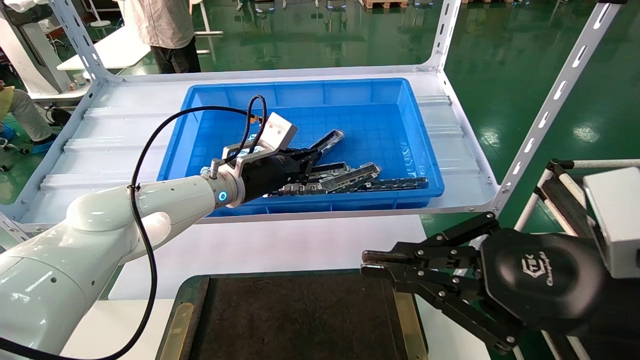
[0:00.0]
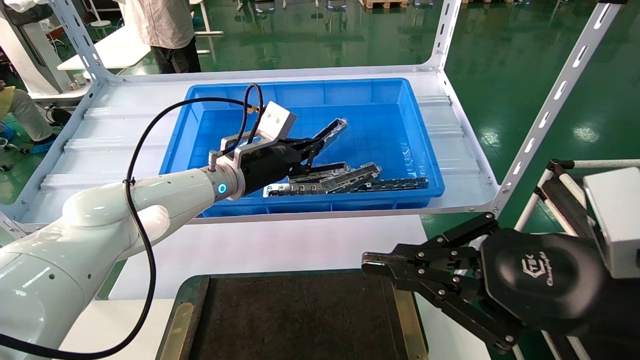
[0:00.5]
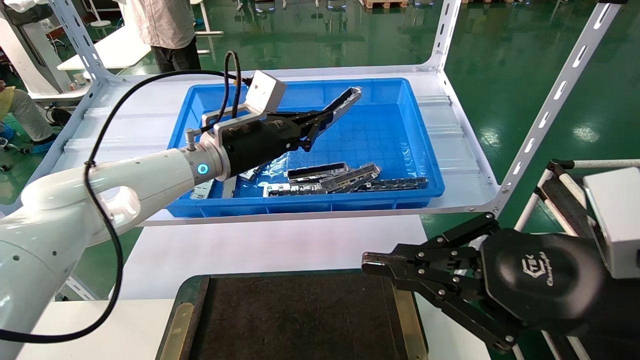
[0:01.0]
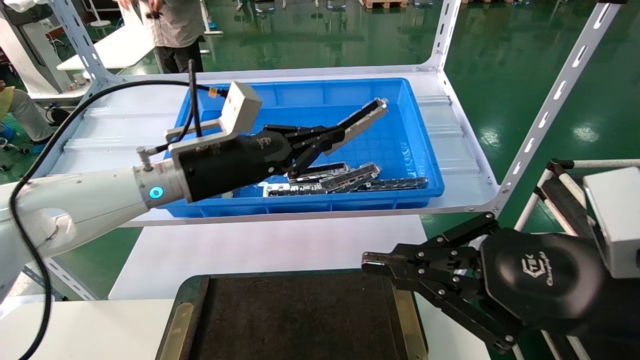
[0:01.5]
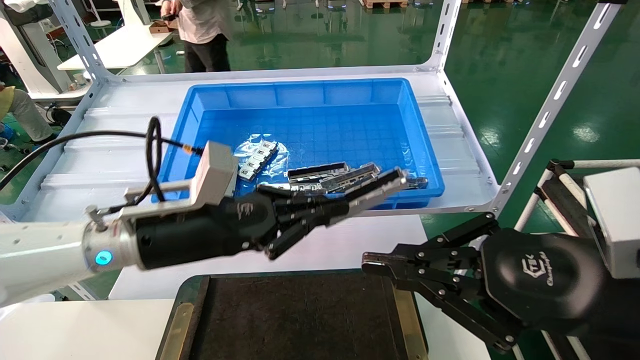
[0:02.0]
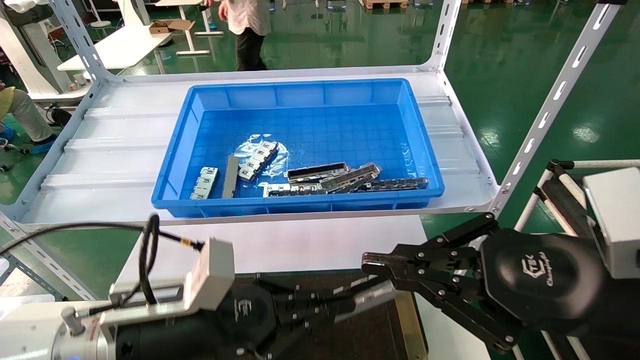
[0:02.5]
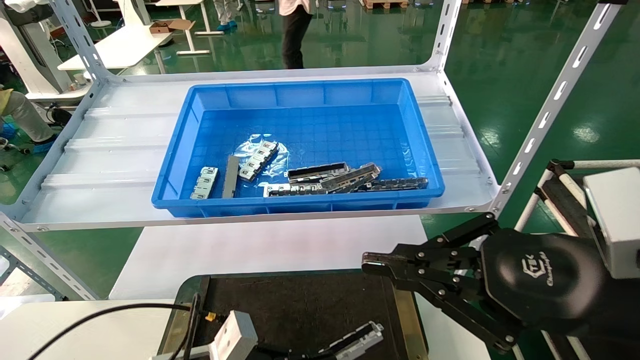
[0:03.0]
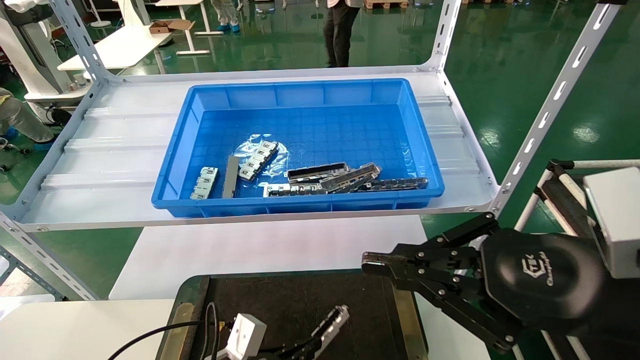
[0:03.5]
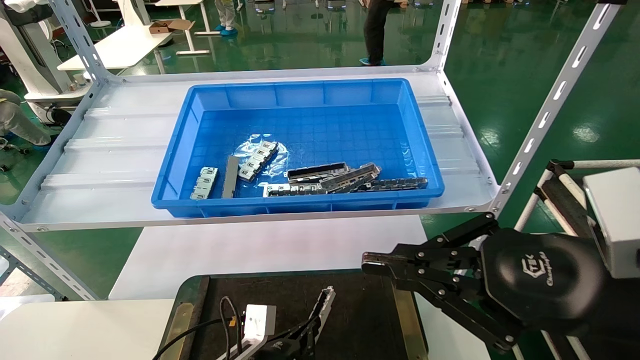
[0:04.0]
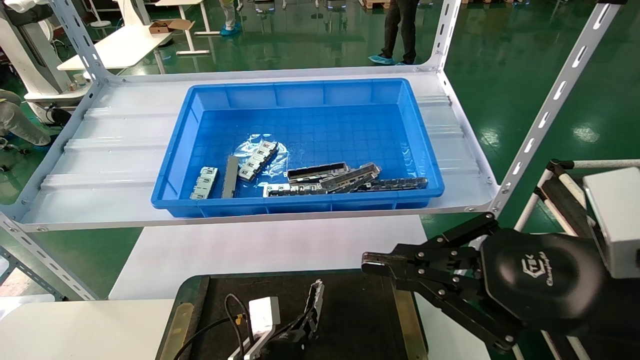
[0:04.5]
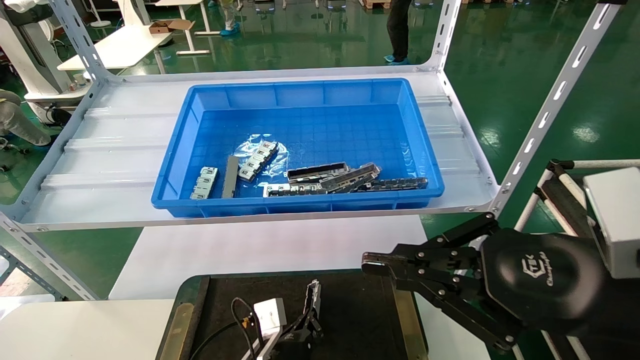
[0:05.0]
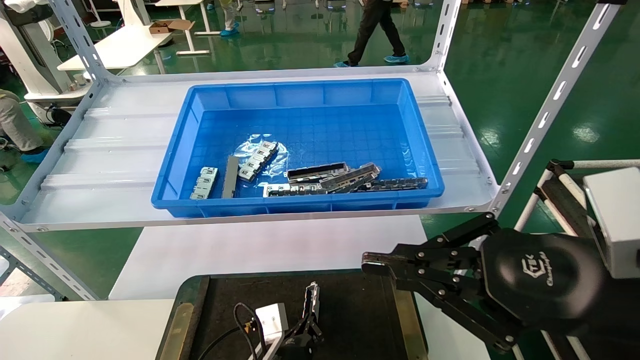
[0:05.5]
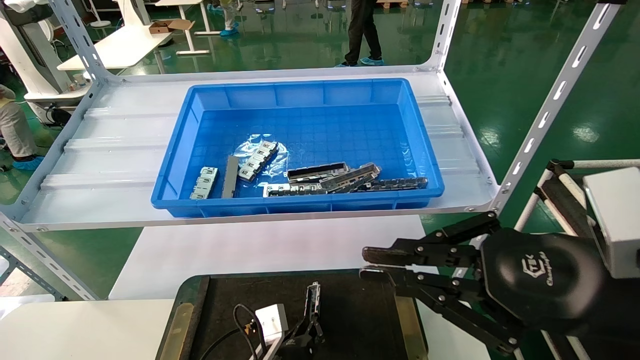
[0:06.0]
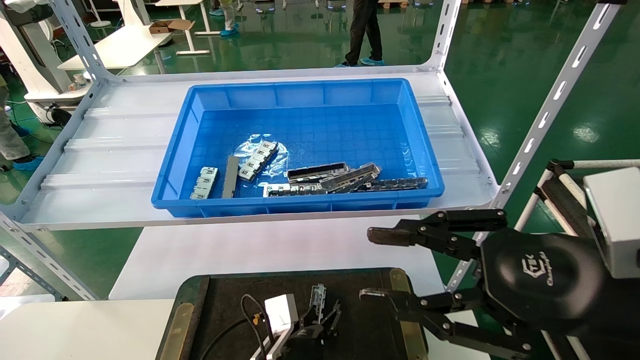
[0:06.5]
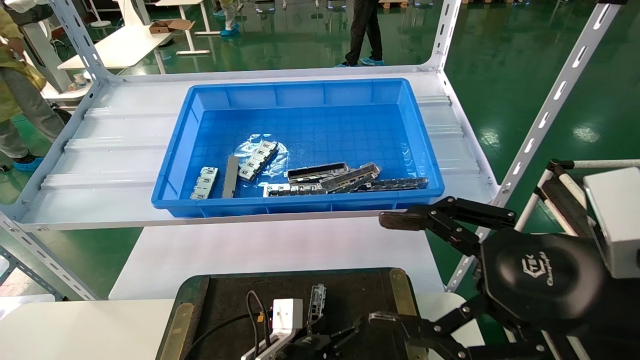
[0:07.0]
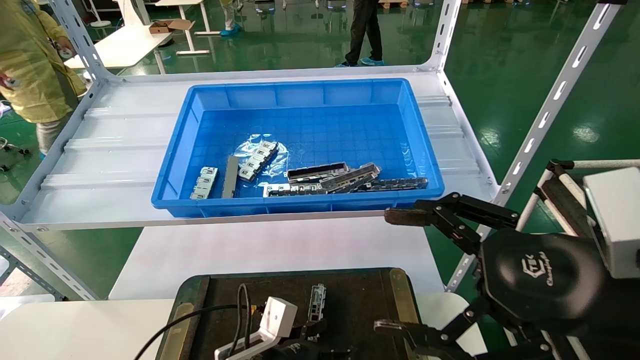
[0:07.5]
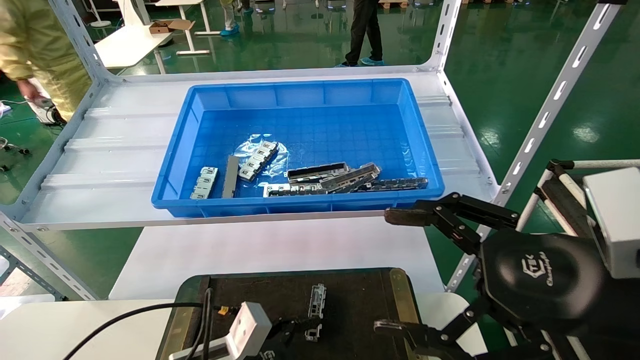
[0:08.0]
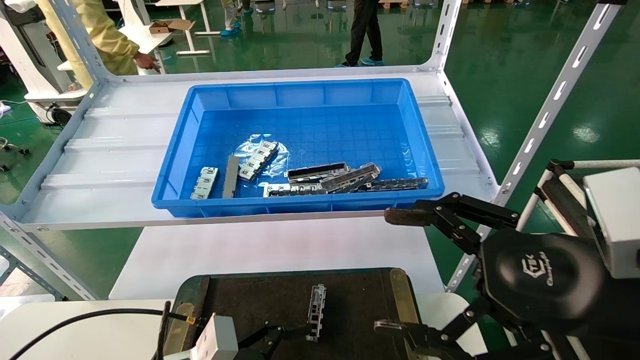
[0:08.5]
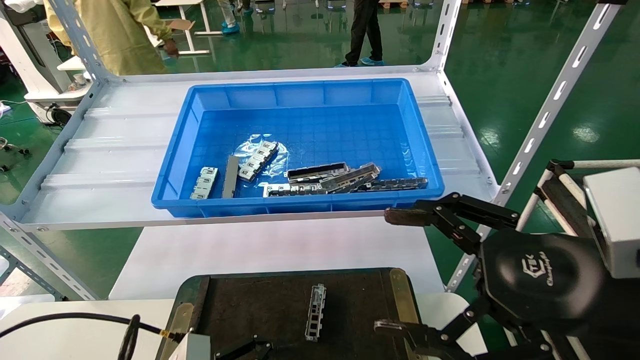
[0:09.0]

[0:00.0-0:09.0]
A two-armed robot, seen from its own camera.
Task of the whole recording: Grasp the part with one hand and place it on the black container.
Step, 0:01.5 to 0:05.5: Place the front USB bracket into the box.
0:00.0 to 0:02.0: The left gripper moves backward, approximately 15 cm.
0:02.0 to 0:04.5: The left gripper is displaced downward by approximately 30 cm.
0:04.5 to 0:07.0: The right gripper opens, while the left gripper opens.
0:07.0 to 0:09.0: The left gripper goes approximately 20 cm to the left, backward and upward.

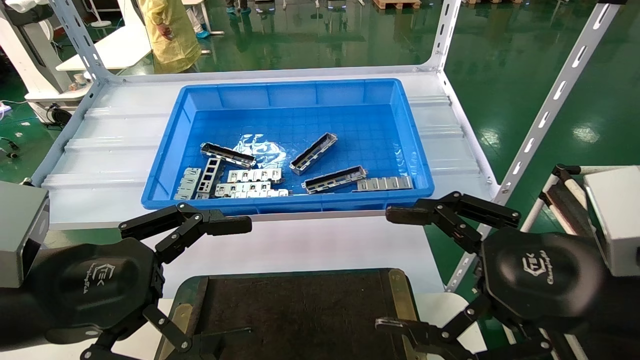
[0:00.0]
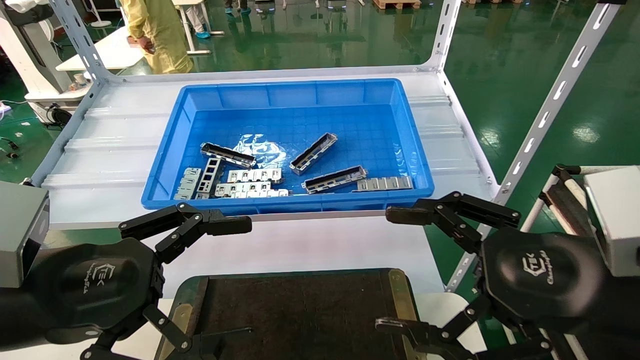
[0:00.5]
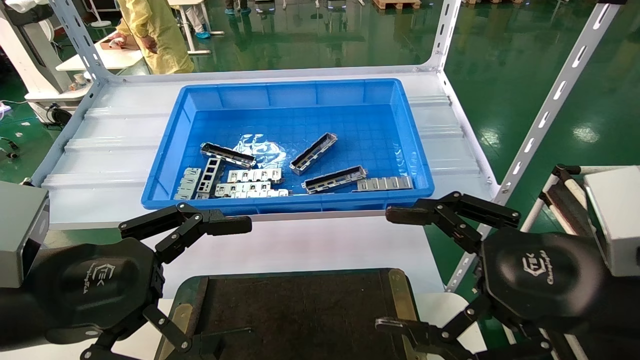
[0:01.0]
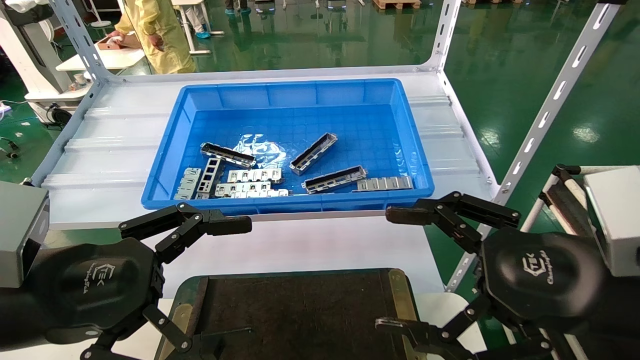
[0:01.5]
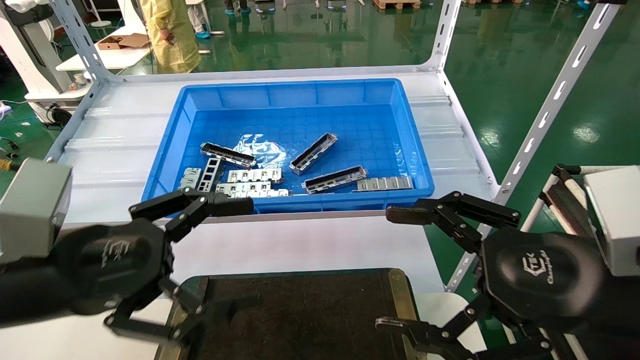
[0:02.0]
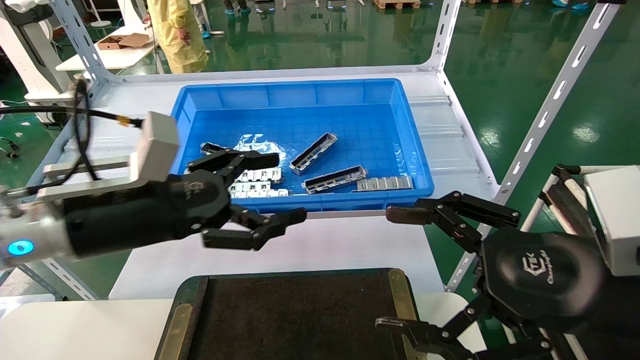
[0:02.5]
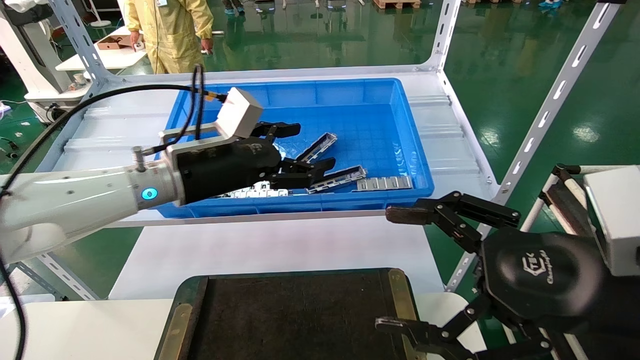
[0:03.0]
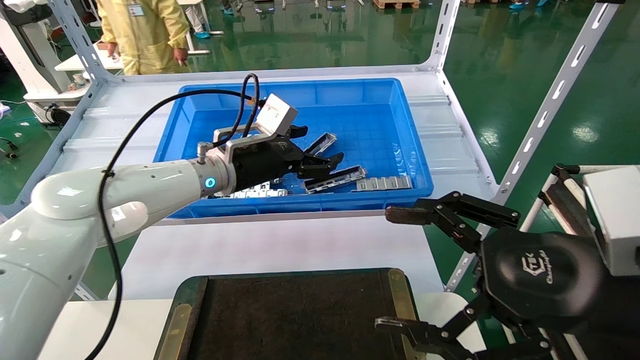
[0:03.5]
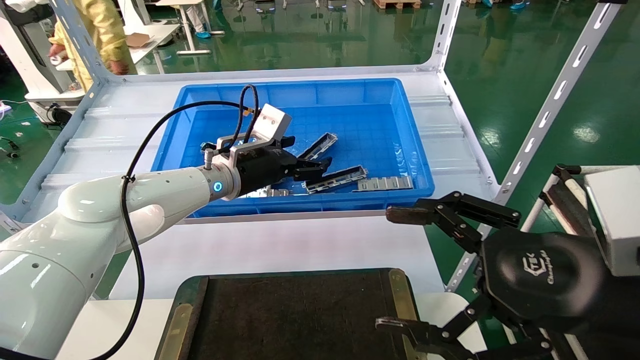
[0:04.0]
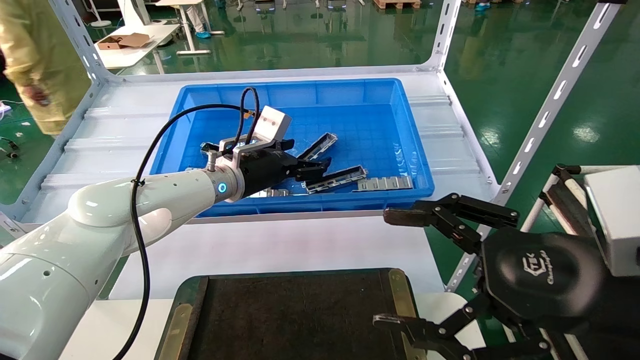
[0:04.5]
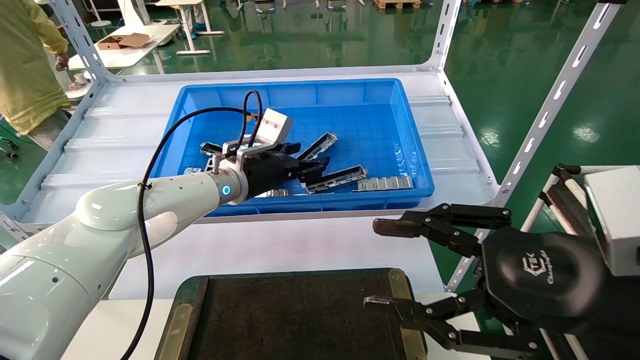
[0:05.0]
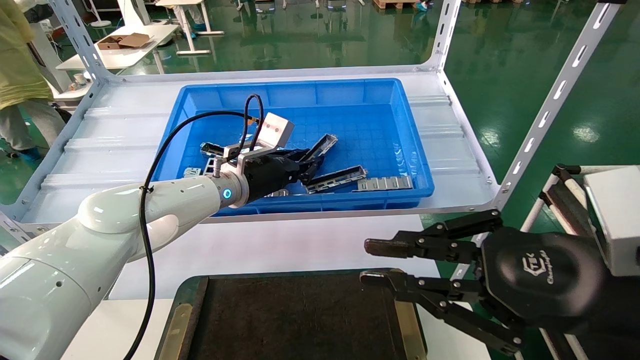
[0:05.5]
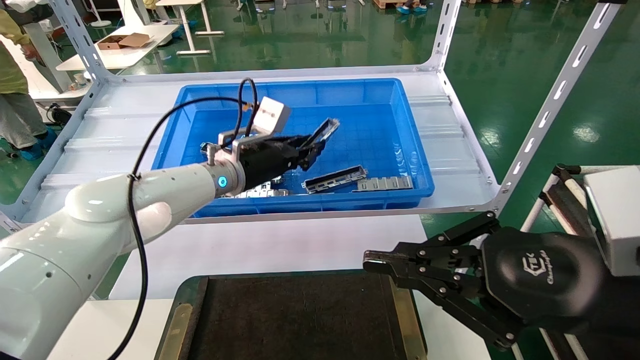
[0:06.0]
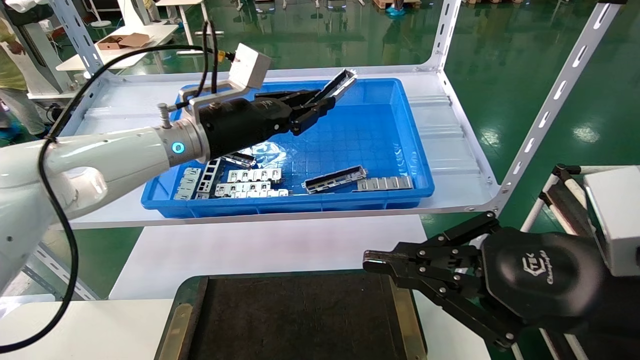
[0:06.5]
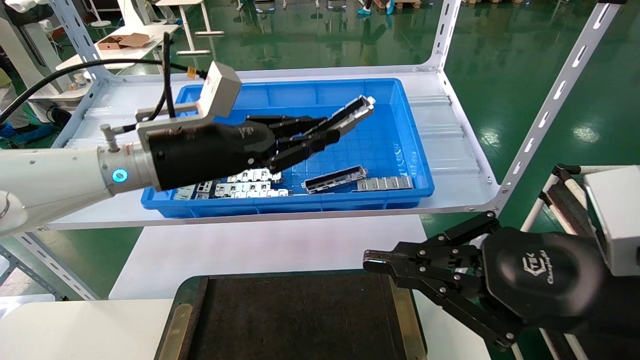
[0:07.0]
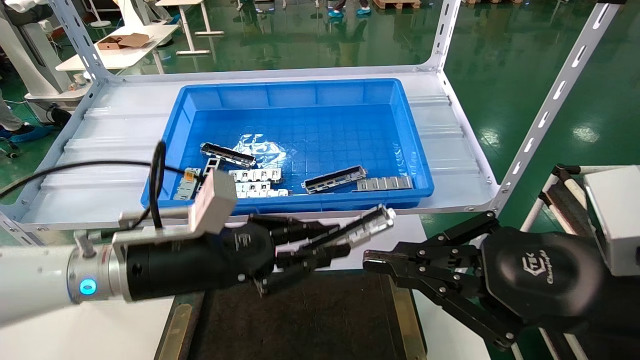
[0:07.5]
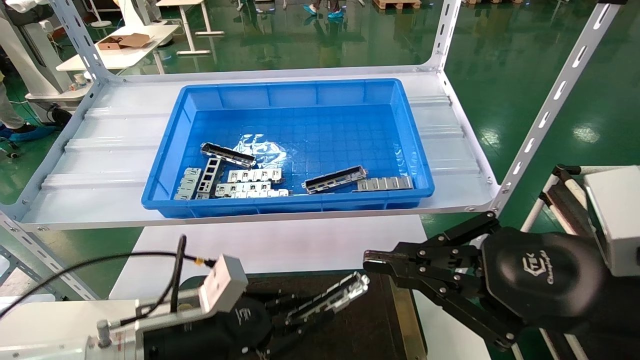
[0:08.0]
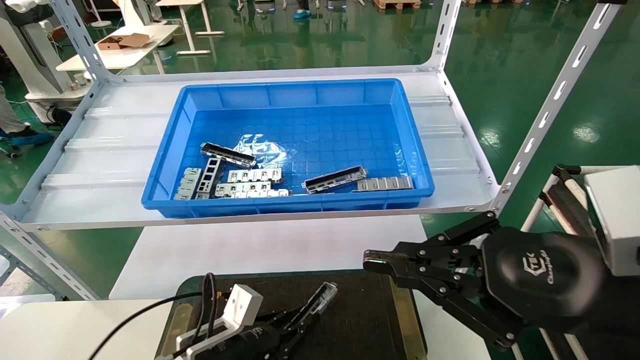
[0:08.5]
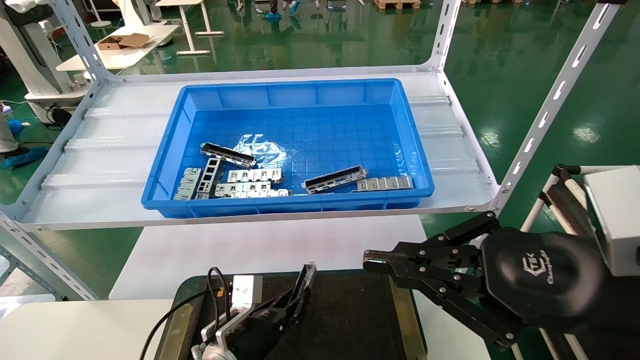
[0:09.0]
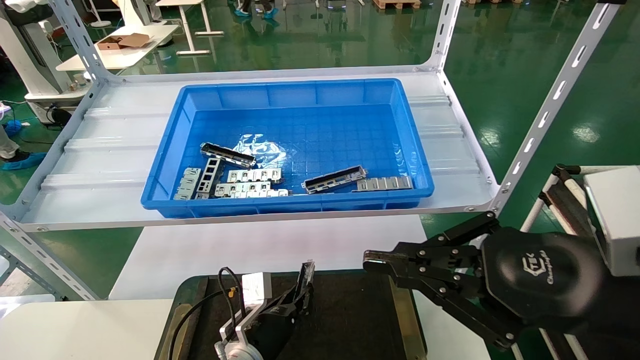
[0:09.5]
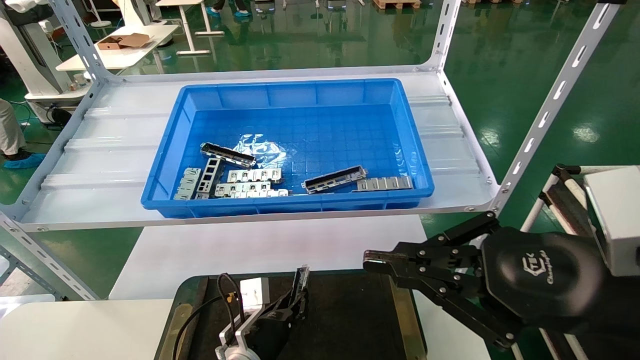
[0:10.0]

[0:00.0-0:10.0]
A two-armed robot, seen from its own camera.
Task of the whole recording: Grasp the part with one hand and place it on the black container.
Step, 0:02.5 to 0:06.0: Pick up the front USB bracket from the feeding area.
0:00.0 to 0:02.0: The grippers stay close to where they were, moving slightly.
0:02.0 to 0:04.0: The left gripper moves forward and to the right, some 30 cm.
0:04.0 to 0:06.0: The right gripper closes up, while the left gripper closes.
0:06.0 to 0:08.0: The left gripper moves backward and downward, roughly 25 cm.
0:08.0 to 0:10.0: The left gripper travels downward, forward and to the right by roughly 20 cm.

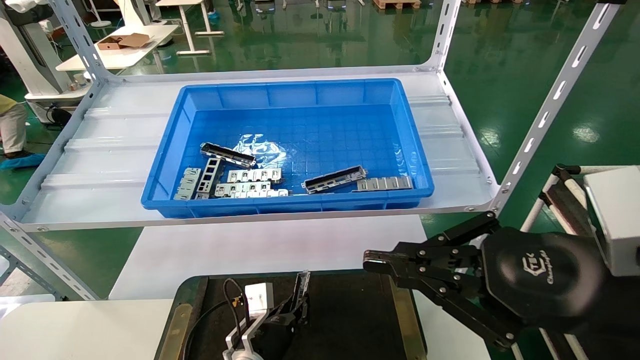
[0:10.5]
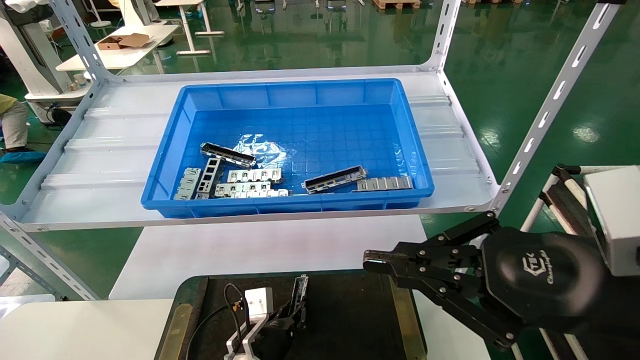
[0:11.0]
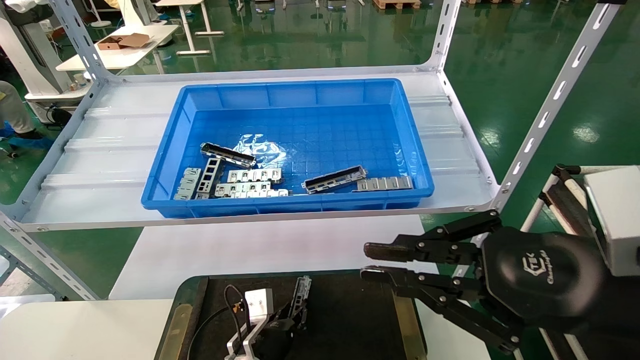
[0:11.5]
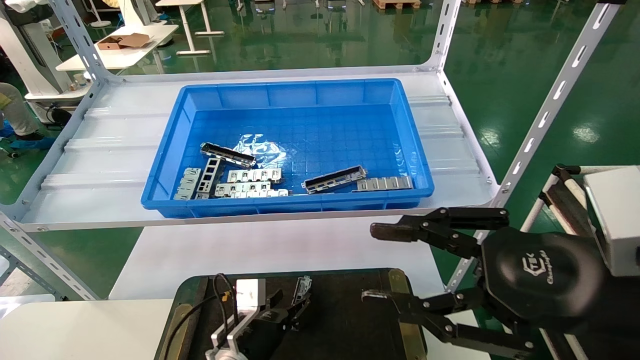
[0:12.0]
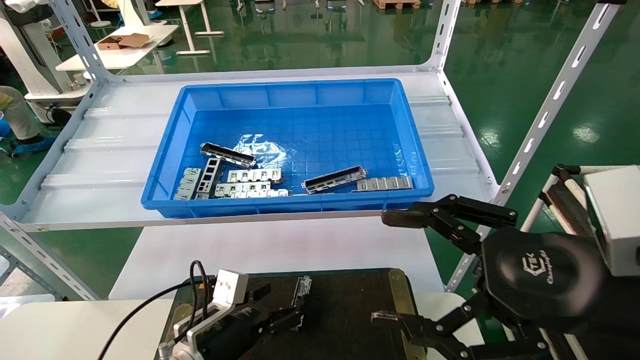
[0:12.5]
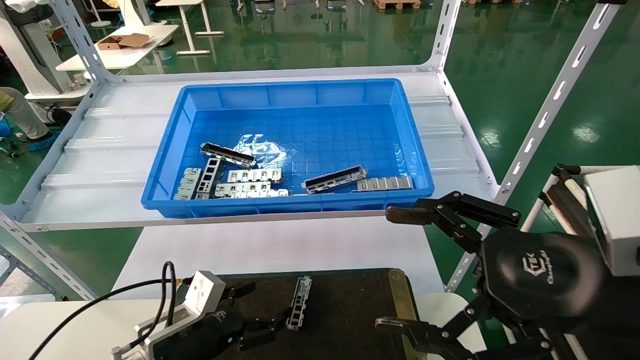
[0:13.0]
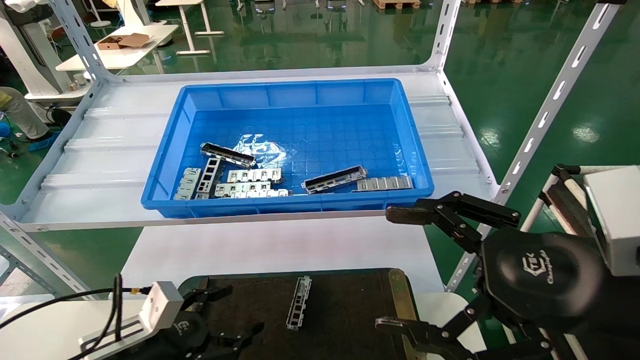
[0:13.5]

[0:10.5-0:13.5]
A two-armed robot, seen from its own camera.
Task of the whole recording: Grasp the part with one hand and place it on the black container.
0:10.5 to 0:12.0: The left gripper opens its fingers, while the right gripper opens up.
0:12.0 to 0:13.5: The left gripper travels to the left, backward and upward by about 20 cm, and opens its fingers, while the right gripper opens up.
